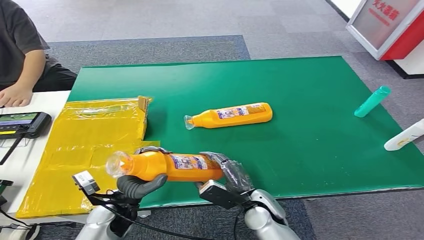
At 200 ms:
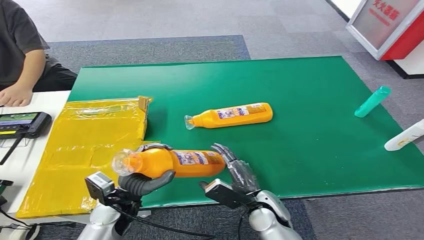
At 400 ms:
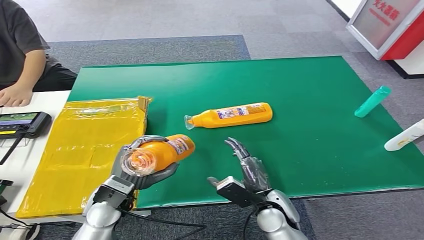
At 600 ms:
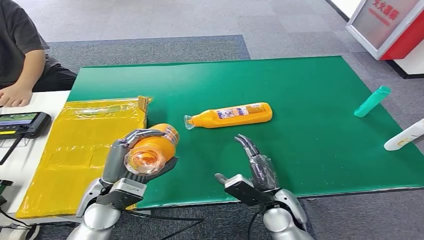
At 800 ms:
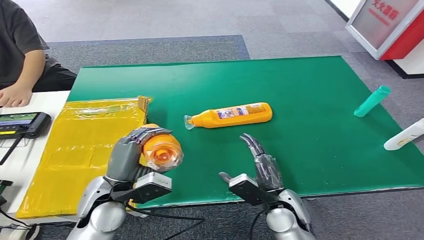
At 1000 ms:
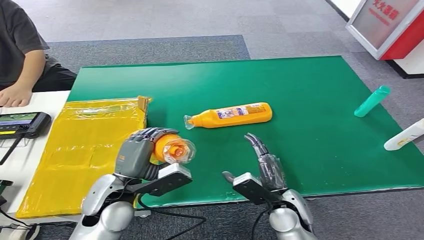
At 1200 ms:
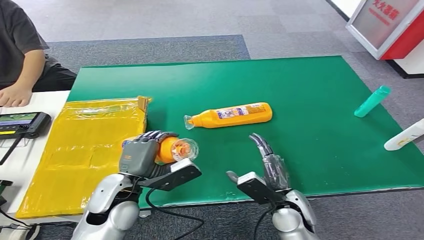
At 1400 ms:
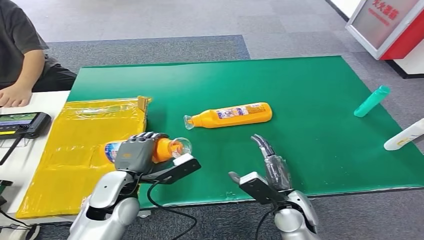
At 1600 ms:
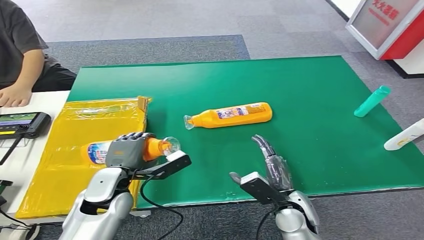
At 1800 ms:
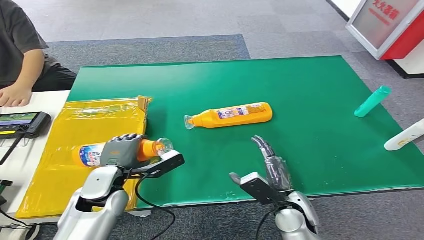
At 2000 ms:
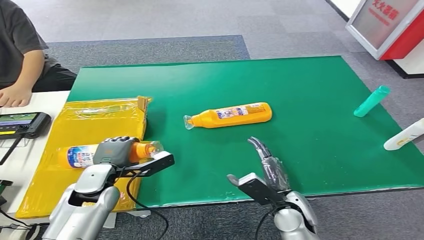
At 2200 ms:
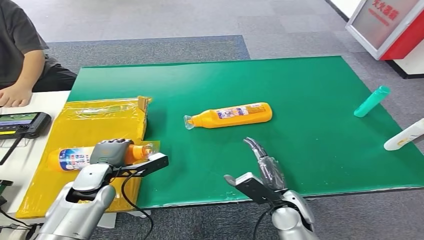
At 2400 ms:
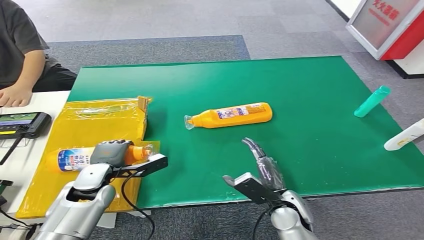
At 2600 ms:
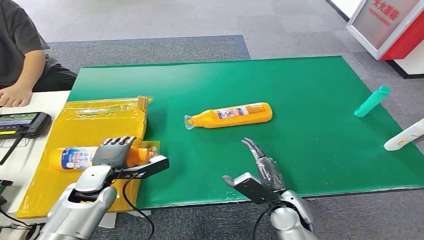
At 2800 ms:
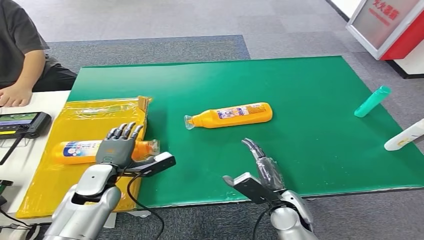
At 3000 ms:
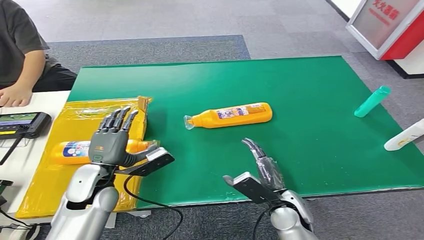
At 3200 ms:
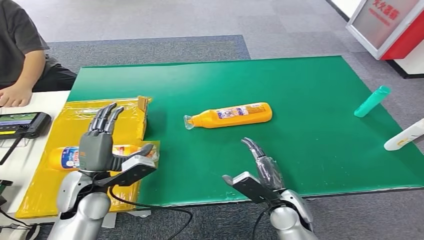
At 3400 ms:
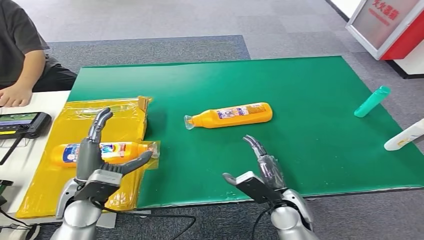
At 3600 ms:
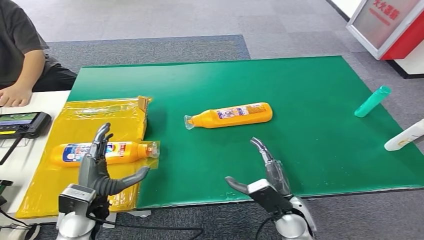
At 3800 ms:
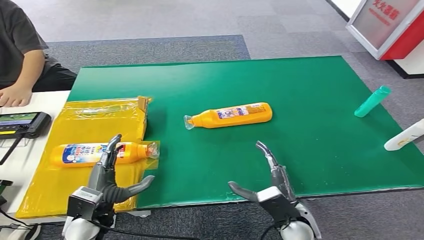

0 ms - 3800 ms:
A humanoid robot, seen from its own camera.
Step, 0 ms - 3800 ms: Turn the bottle to the front side.
0 ms - 1200 ms: The left hand heads upward, covering about 10 cm. The right hand travels to the right by some 5 cm.
1200 ms - 2600 ms: The left hand is displaced to the left, downward and forward by approximately 10 cm.
2600 ms - 3800 ms: The left hand is displaced backward by some 10 cm.
